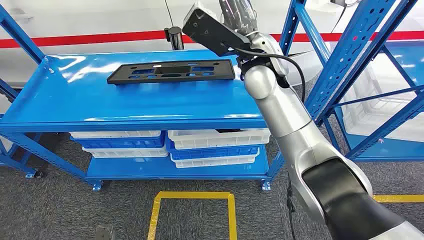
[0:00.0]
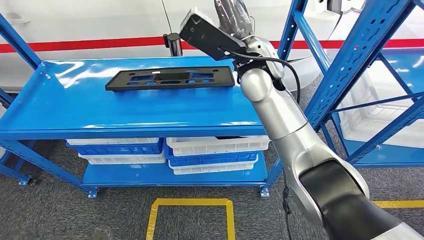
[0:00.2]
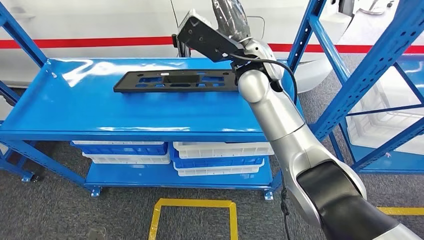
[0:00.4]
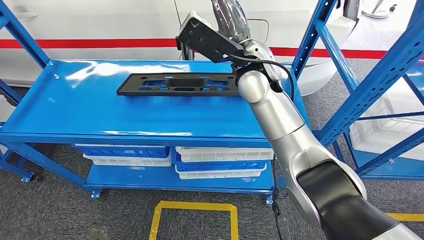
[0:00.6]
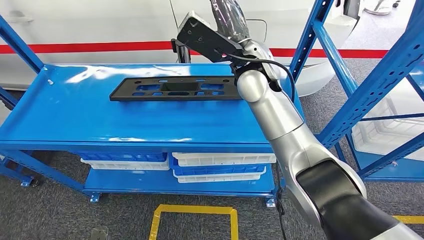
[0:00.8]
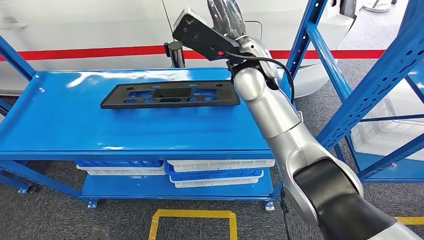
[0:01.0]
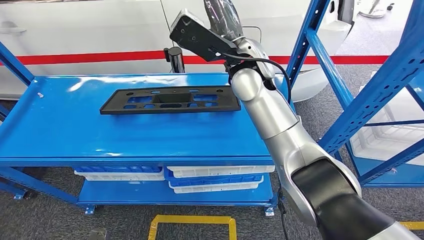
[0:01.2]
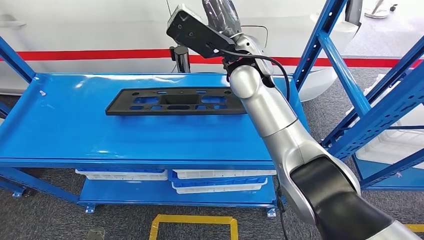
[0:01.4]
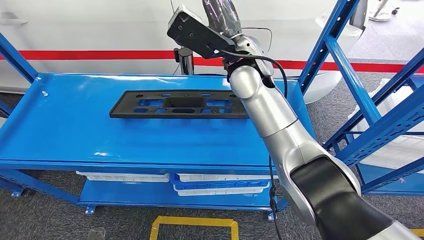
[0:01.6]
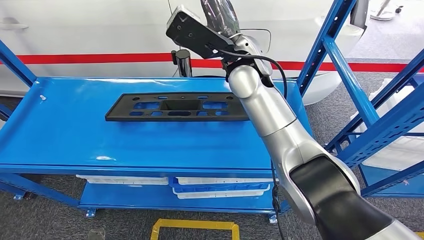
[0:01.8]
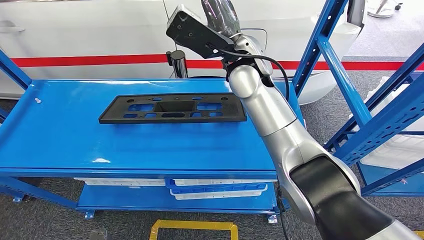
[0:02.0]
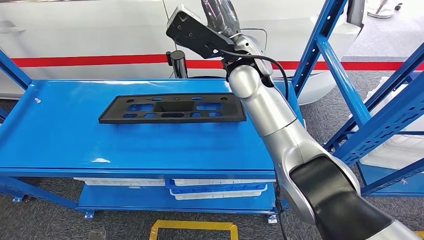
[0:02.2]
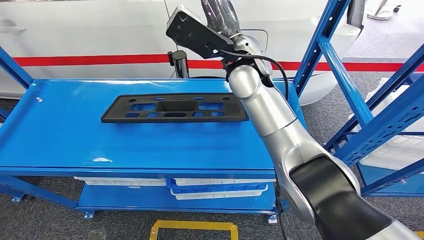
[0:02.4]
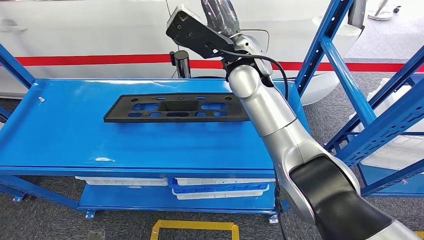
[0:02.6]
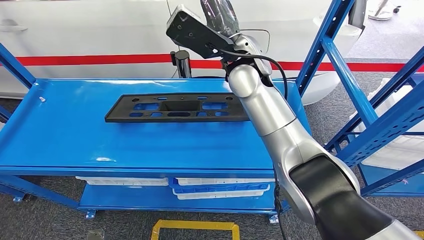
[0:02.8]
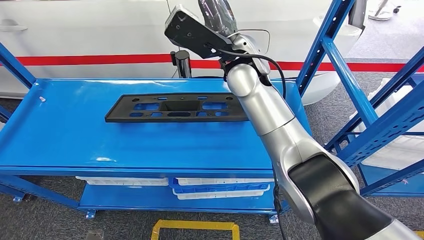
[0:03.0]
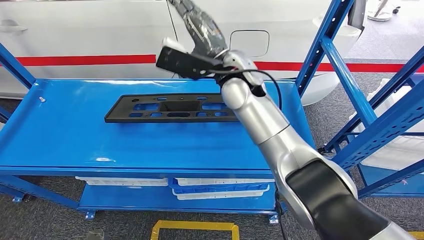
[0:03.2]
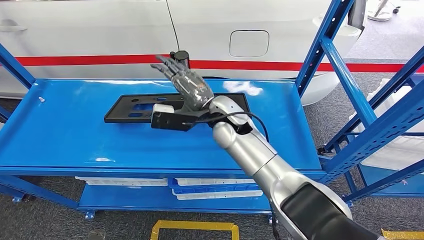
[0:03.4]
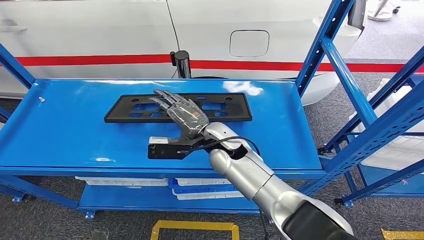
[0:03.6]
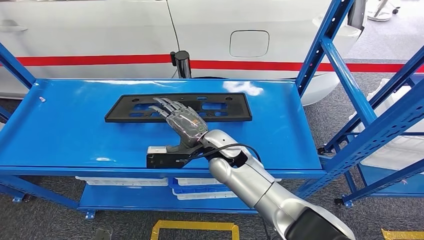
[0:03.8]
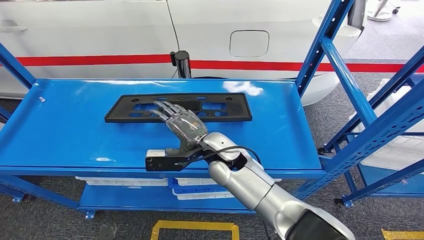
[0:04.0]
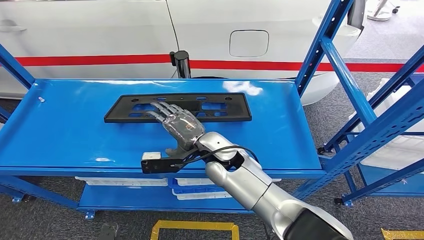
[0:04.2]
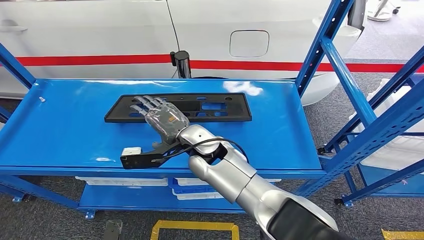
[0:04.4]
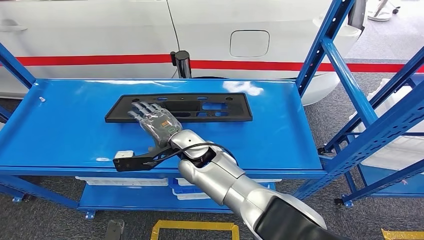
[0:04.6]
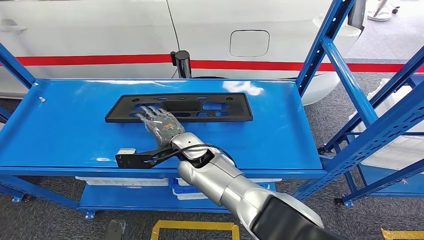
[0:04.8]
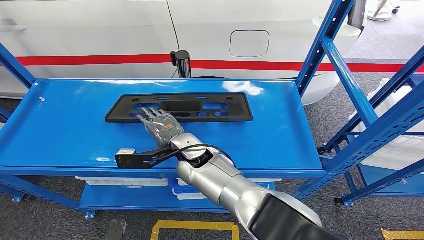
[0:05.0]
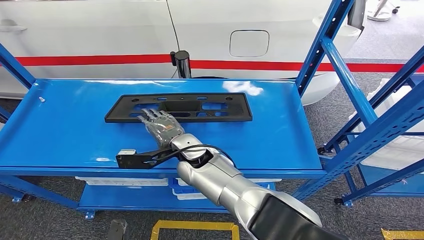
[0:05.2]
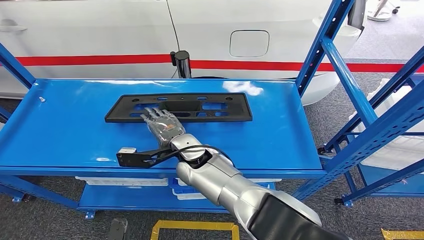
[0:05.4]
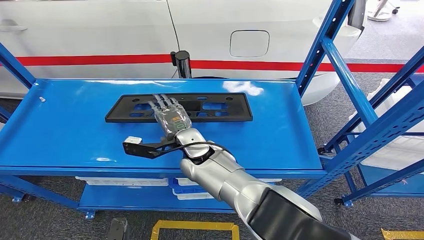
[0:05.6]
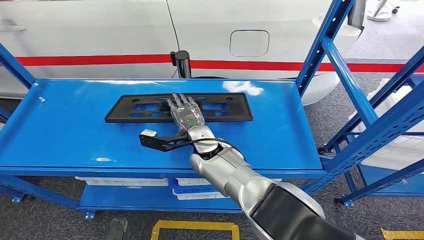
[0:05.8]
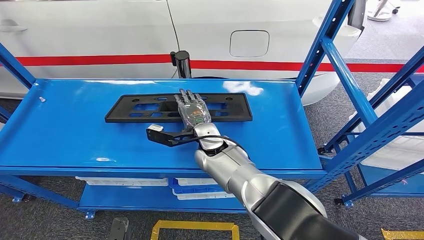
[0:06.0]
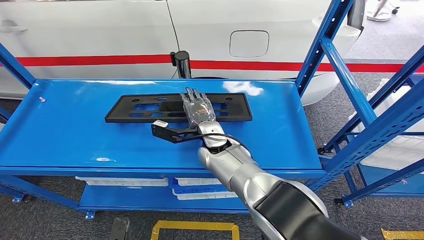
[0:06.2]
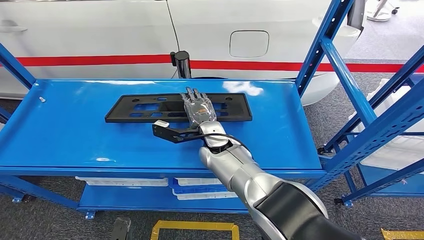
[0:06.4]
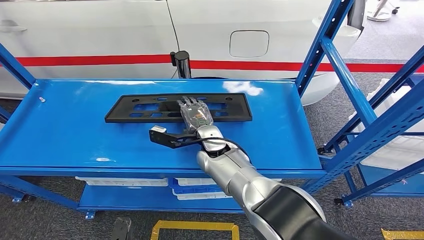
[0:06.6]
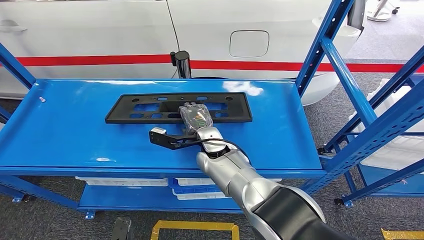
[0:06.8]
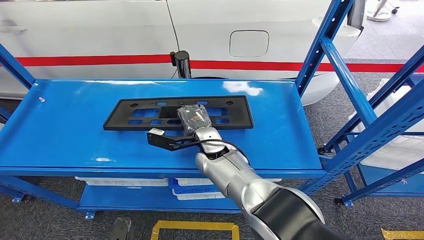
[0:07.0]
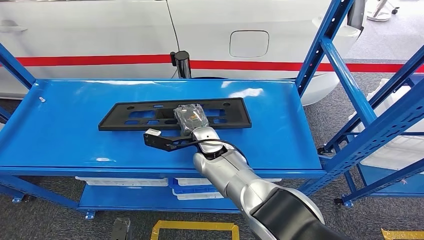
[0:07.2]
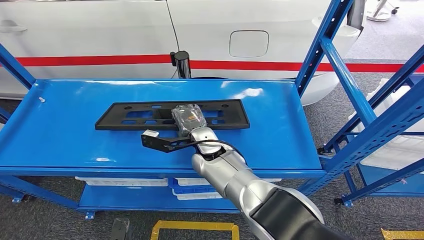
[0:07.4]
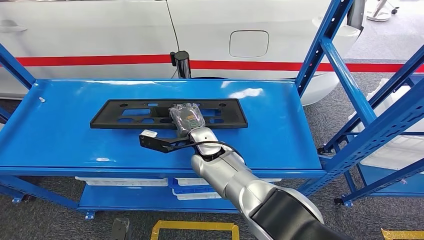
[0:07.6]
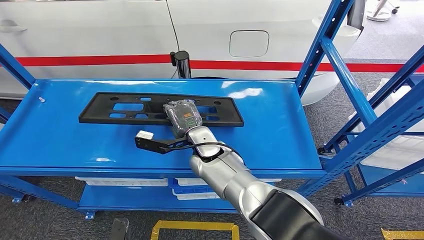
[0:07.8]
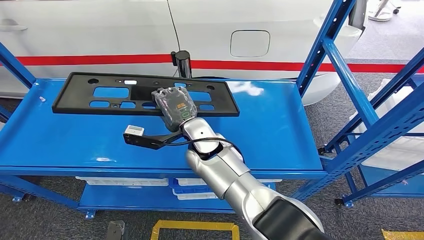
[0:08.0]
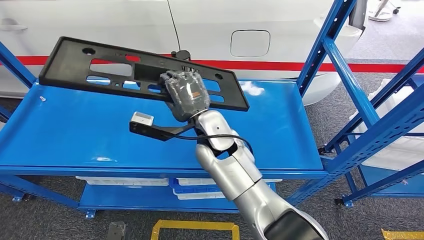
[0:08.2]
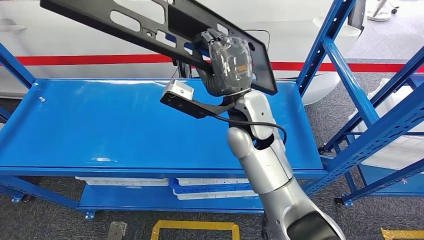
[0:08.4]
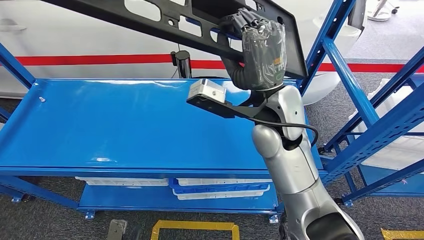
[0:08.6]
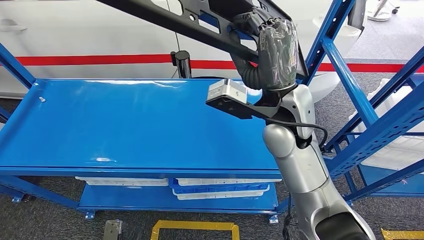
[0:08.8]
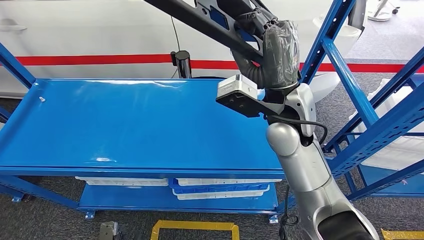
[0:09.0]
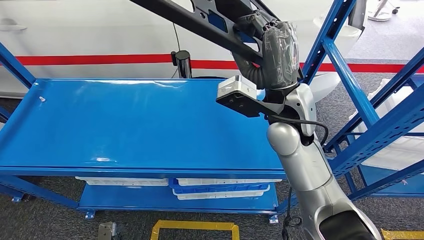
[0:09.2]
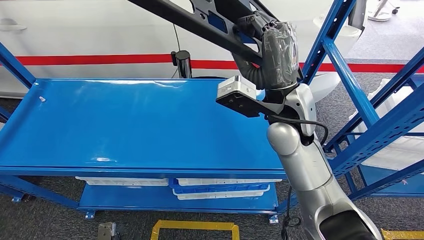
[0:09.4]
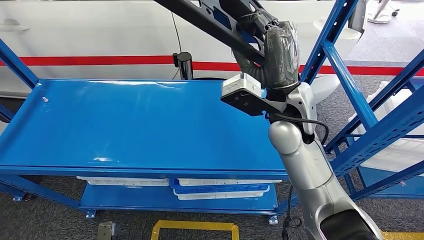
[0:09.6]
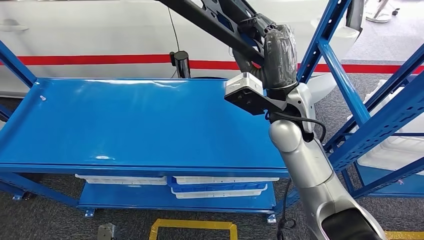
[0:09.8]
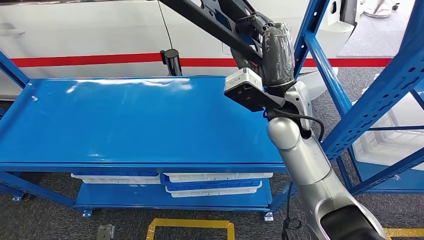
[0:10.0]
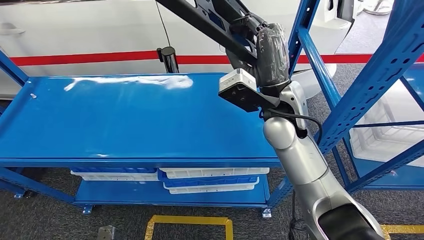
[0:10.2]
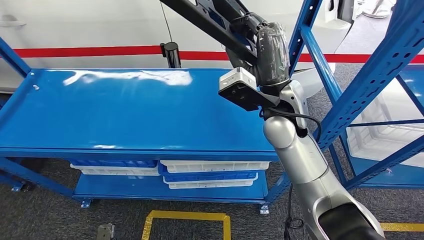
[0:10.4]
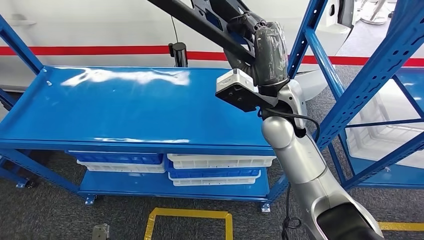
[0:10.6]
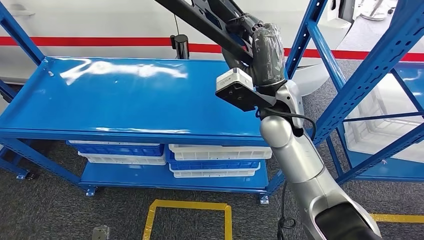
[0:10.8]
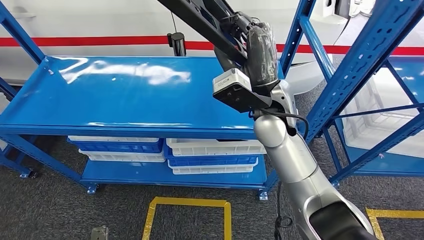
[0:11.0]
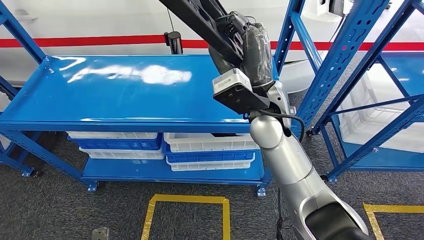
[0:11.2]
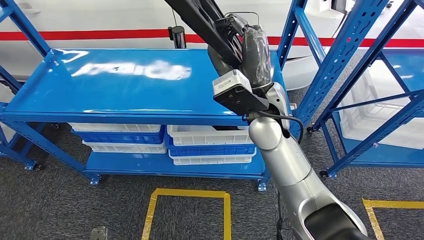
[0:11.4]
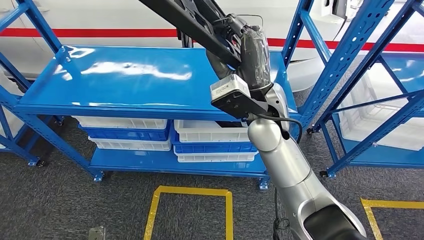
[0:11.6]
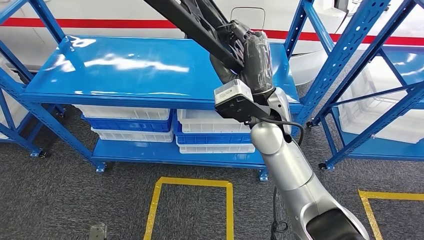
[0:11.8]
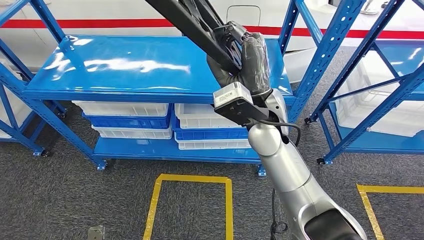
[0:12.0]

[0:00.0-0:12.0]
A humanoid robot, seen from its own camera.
Step, 0:00.0 to 0:10.8: Pick up the large material from the shelf.
0:04.4 to 0:06.0: The right hand shifts by roughly 5 cm.
0:06.0 to 0:07.6: The hands make only small movements.

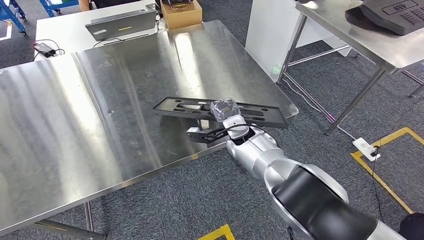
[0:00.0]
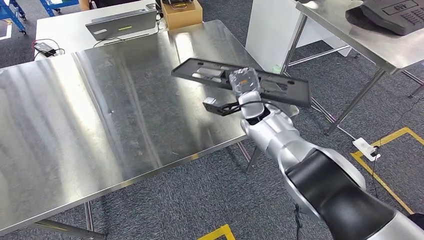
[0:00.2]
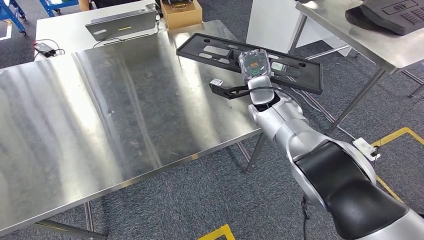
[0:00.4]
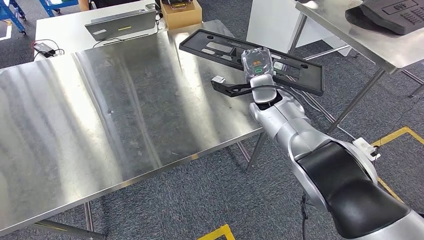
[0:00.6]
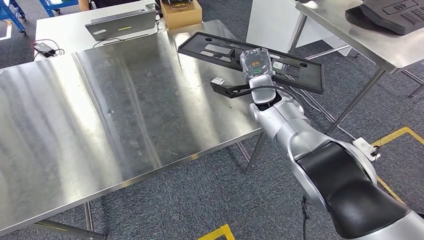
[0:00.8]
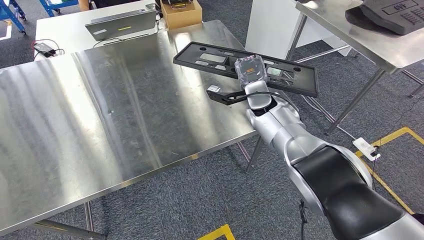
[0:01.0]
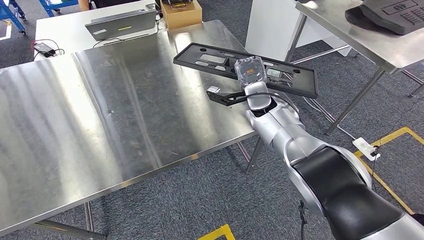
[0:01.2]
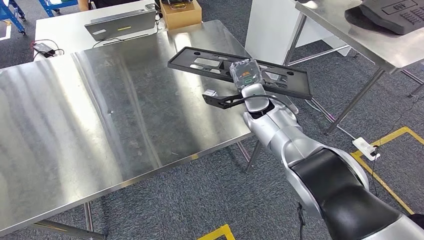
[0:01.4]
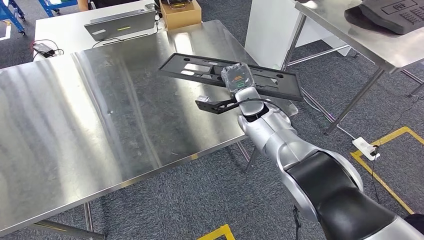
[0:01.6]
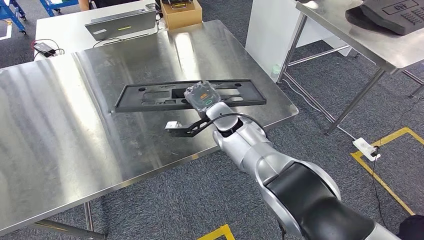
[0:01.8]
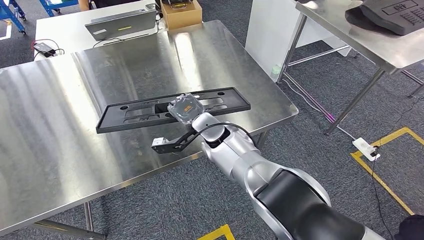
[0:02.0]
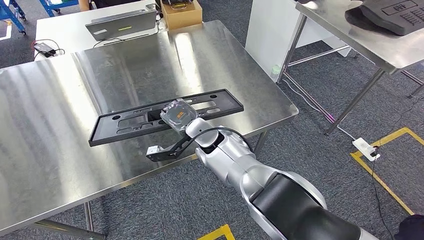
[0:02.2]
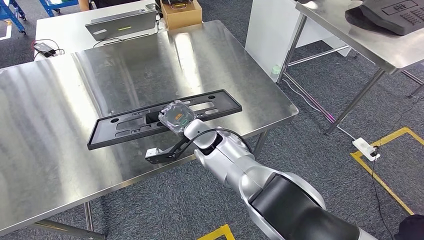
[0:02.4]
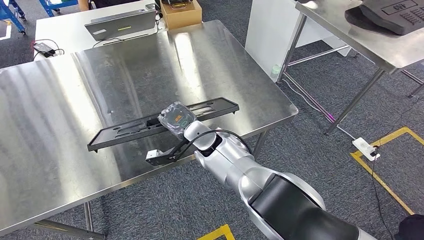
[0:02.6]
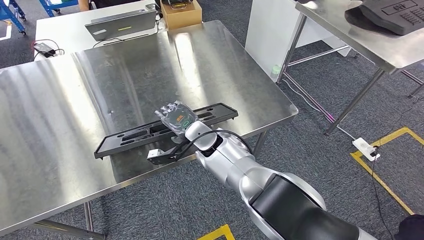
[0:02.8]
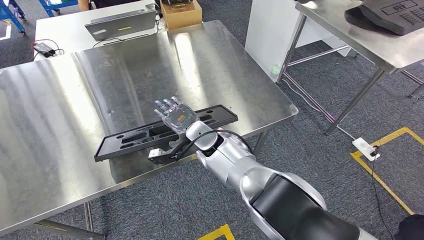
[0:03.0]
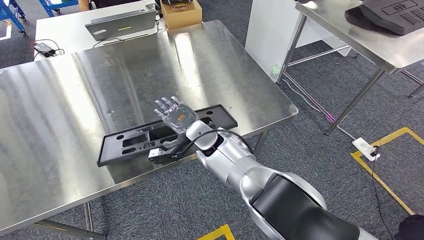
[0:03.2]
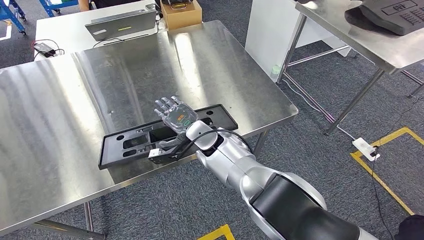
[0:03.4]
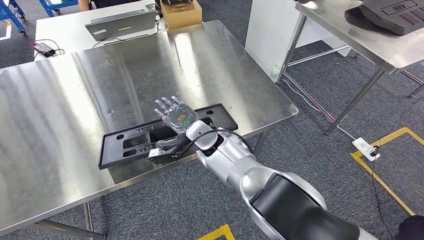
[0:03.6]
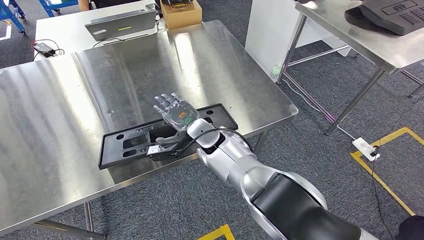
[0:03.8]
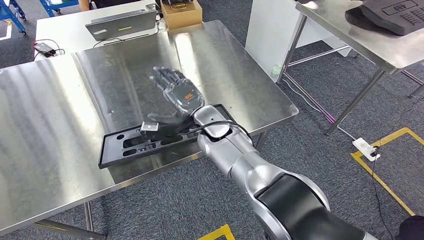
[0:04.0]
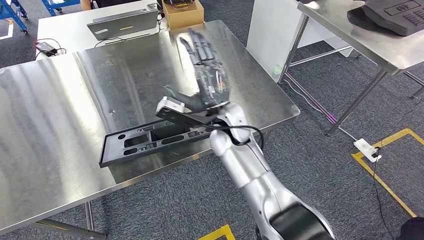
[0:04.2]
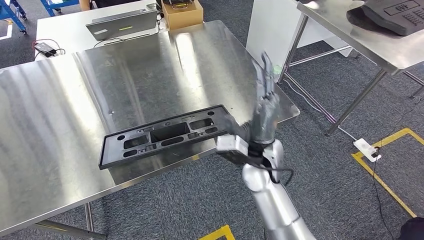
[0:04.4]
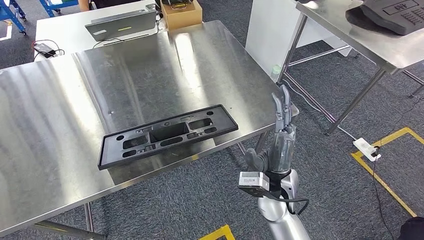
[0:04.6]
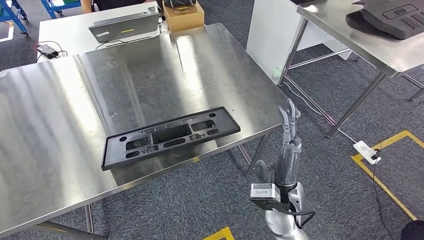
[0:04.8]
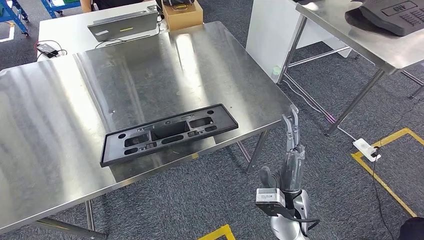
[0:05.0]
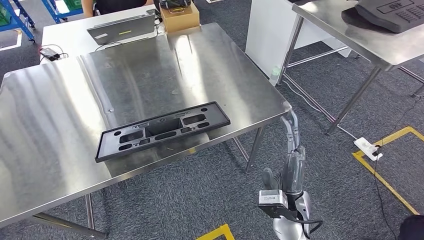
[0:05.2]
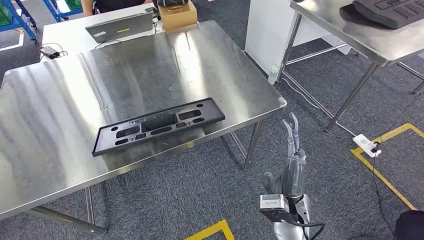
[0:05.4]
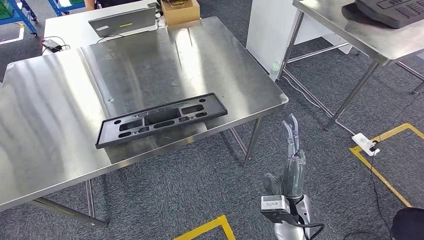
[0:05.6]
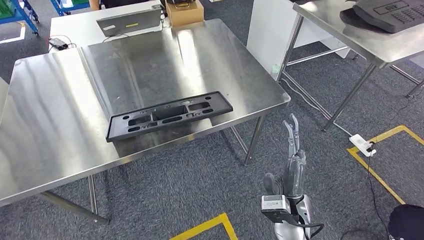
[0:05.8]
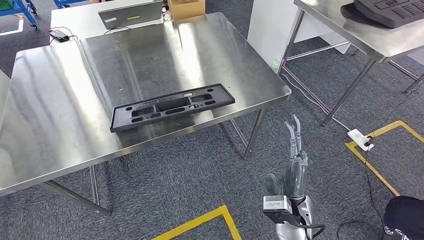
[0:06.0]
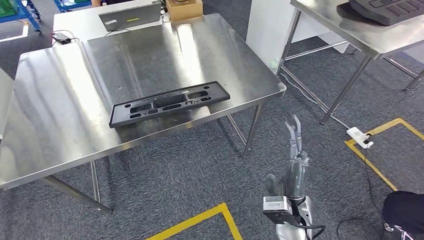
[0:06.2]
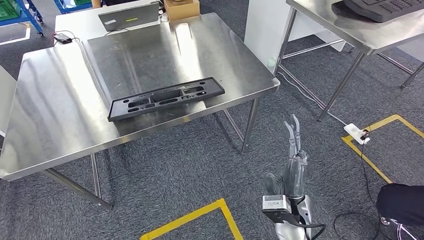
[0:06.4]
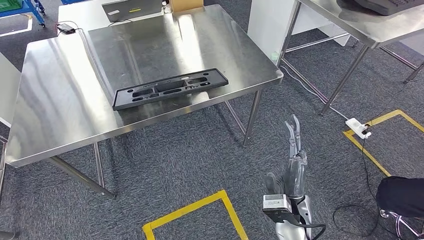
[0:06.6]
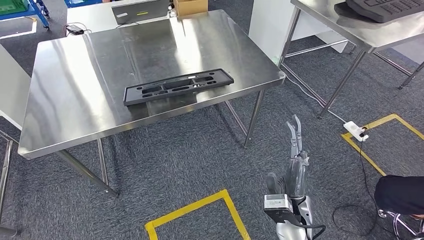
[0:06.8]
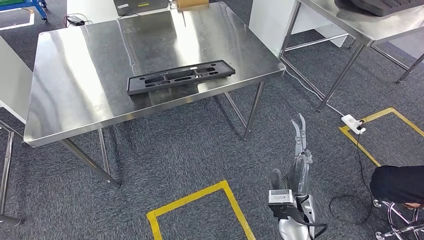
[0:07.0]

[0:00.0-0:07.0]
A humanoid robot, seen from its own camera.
0:00.0 to 0:01.4: The right hand goes some 5 cm upward.
0:02.8 to 0:04.2: The right hand goes some 5 cm upward.
